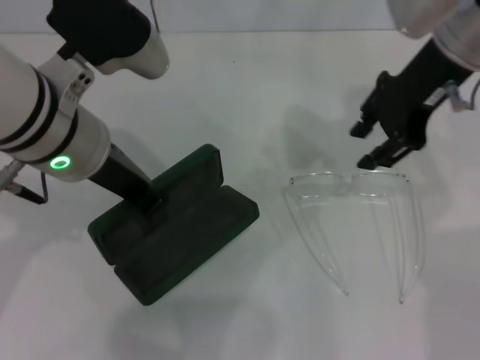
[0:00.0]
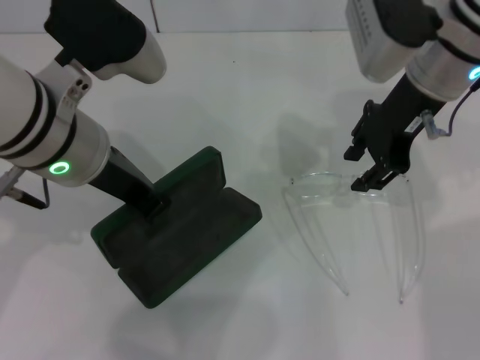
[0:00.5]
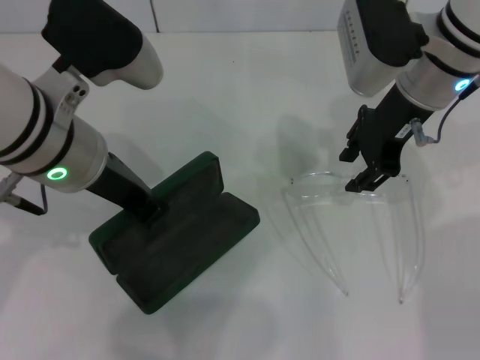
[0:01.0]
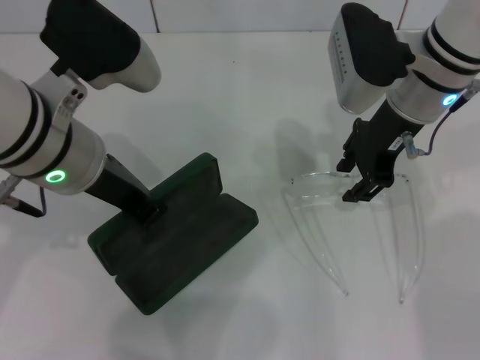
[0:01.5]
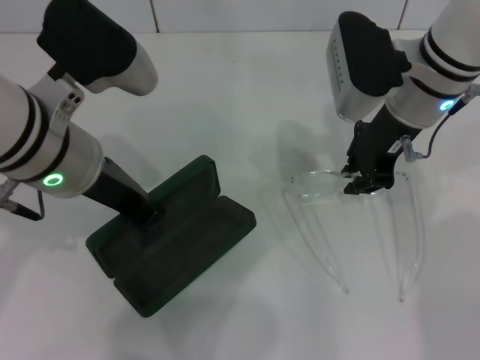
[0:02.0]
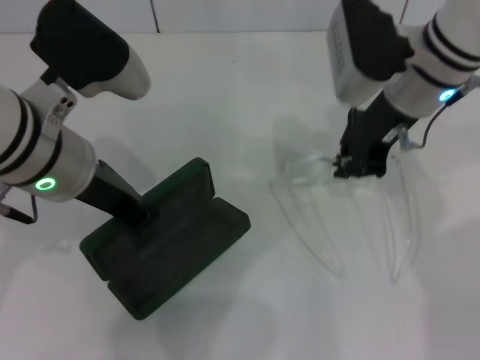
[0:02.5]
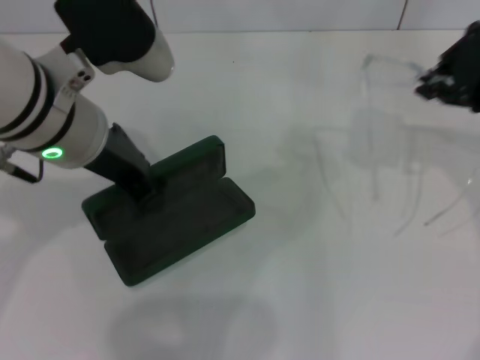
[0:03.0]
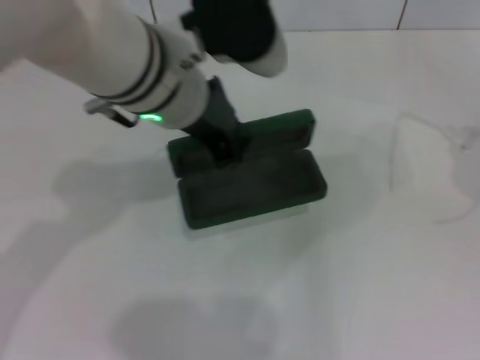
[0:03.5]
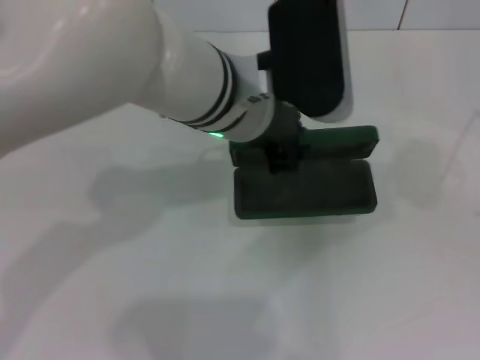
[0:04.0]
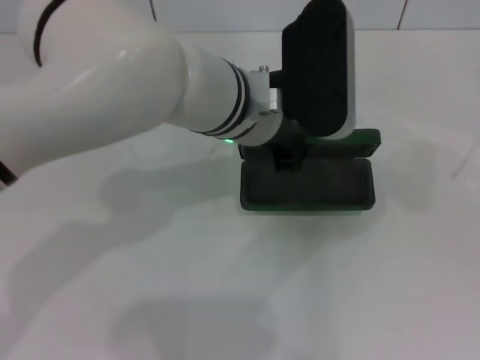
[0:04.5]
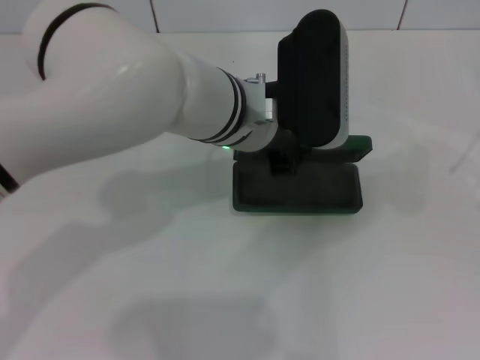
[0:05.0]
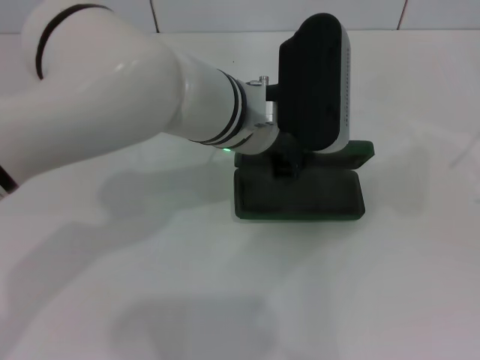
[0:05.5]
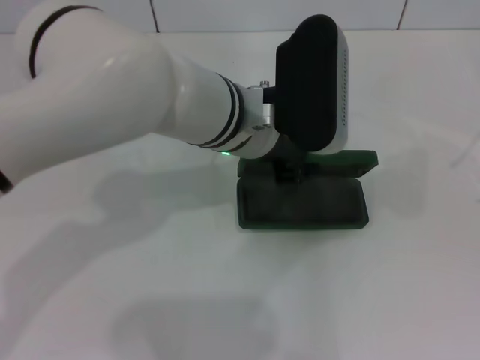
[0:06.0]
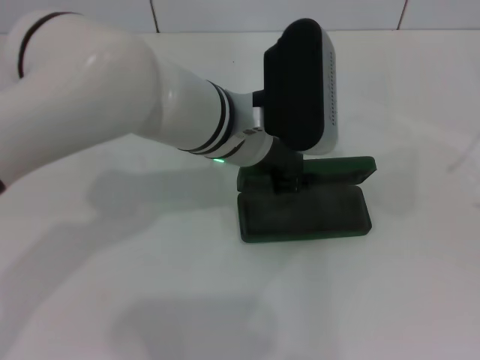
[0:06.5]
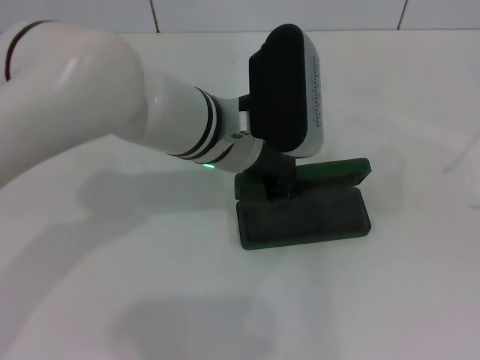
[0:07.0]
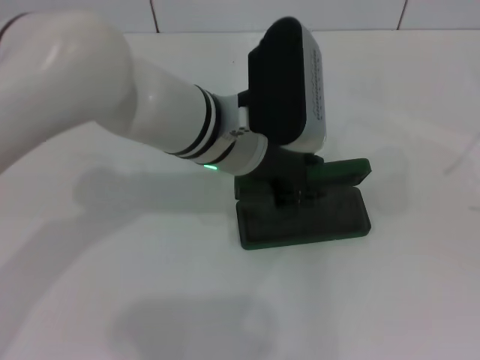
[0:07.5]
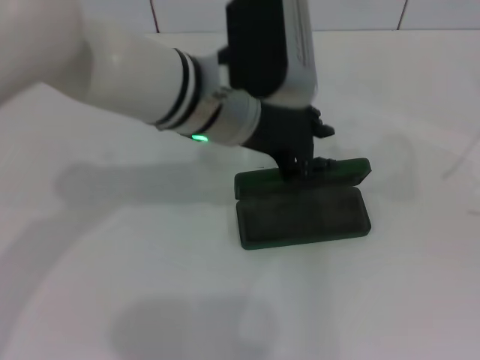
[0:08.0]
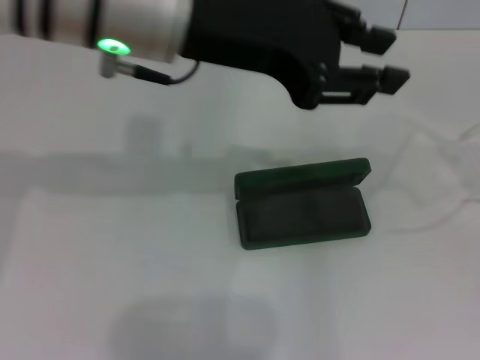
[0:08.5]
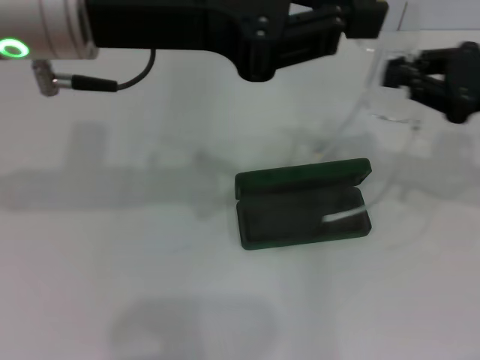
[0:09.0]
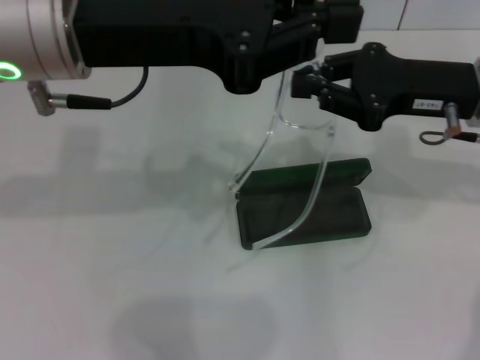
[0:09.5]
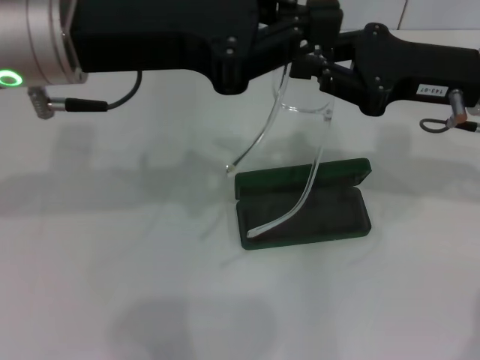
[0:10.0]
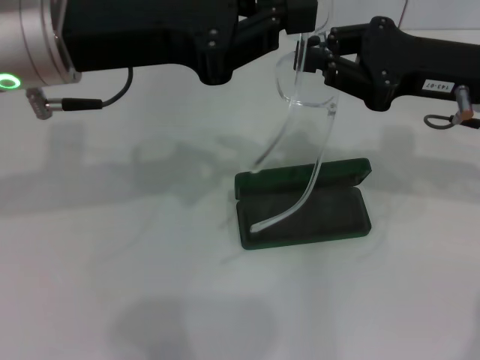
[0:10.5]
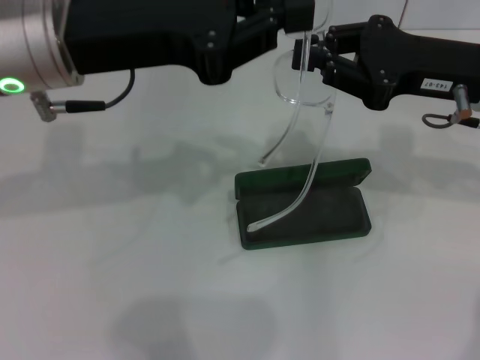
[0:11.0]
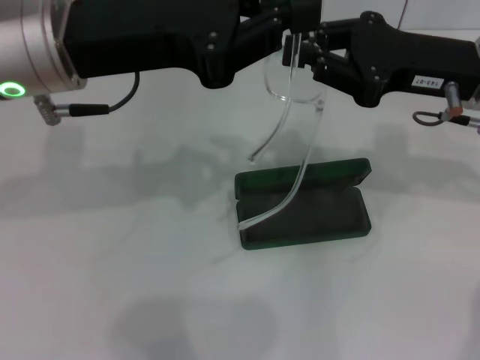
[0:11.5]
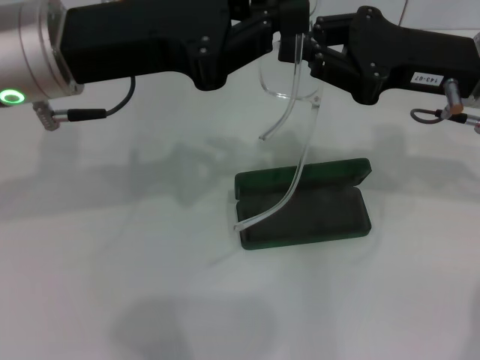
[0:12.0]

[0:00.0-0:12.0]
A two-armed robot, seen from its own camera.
Step, 0:00.0 to 0:02.0: Grab the eyeglass frame with your right hand.
Step, 0:02.5 to 0:07.0: Place the glasses case in the center of the table with your left hand.
0:00.0 to 0:02.0: The right gripper heads downward, covering about 10 cm.
0:02.0 to 0:04.0: The right gripper heads to the right and backward, covering roughly 35 cm, and closes its fingers. Meanwhile the left gripper is displaced to the right by roughly 15 cm.
0:04.0 to 0:06.0: The left gripper opens.
0:08.0 to 0:10.0: The left gripper travels to the left and upward by approximately 15 cm, and closes; the right gripper heads to the left and forward, covering some 25 cm.
0:10.0 to 0:12.0: The grippers stay close to where they were, moving slightly.

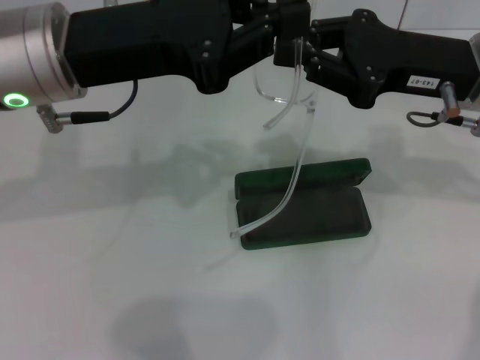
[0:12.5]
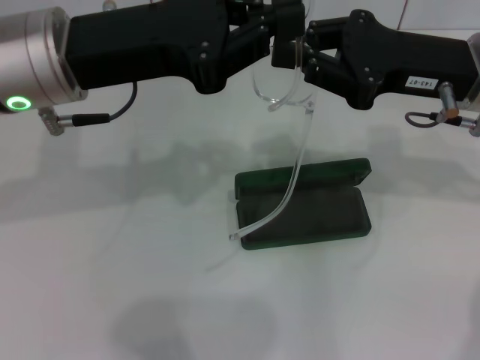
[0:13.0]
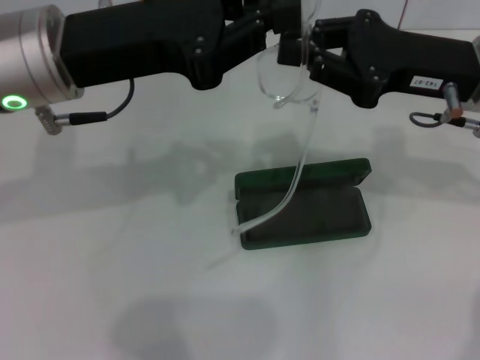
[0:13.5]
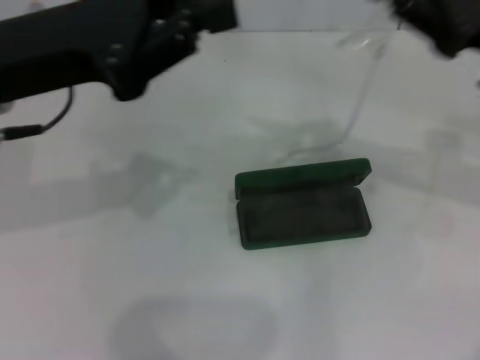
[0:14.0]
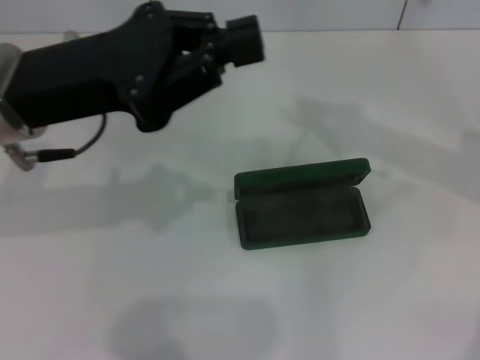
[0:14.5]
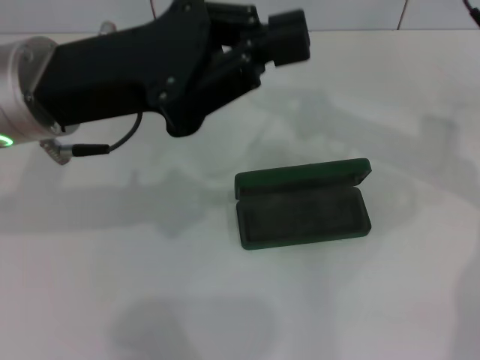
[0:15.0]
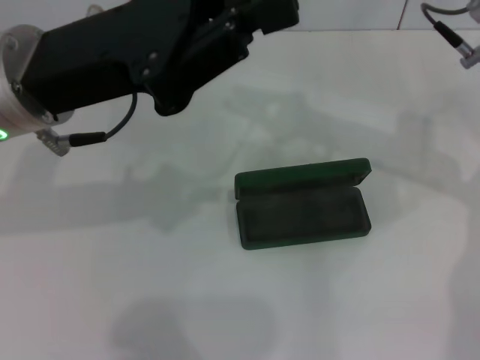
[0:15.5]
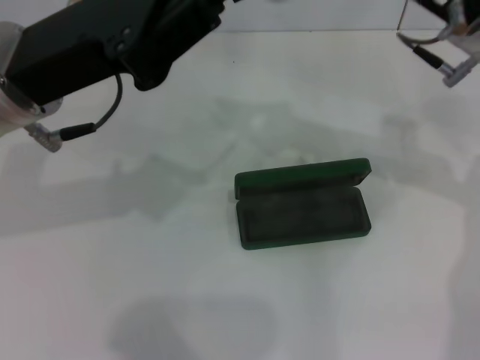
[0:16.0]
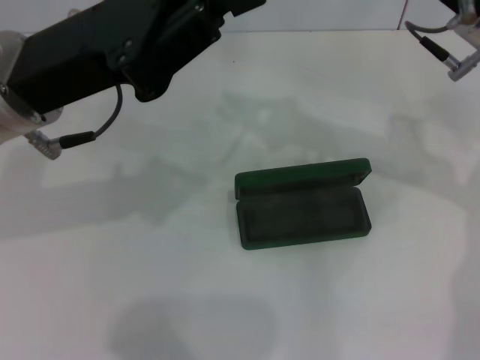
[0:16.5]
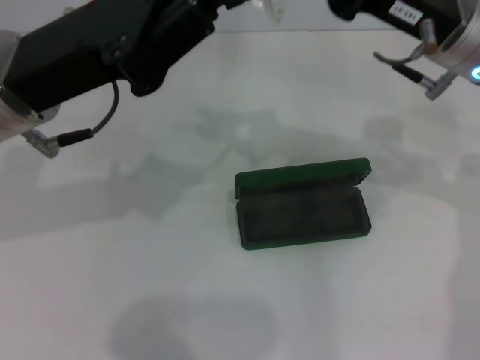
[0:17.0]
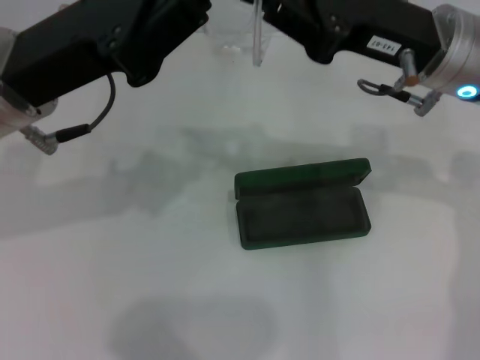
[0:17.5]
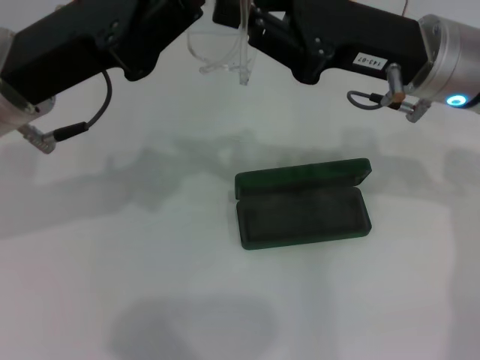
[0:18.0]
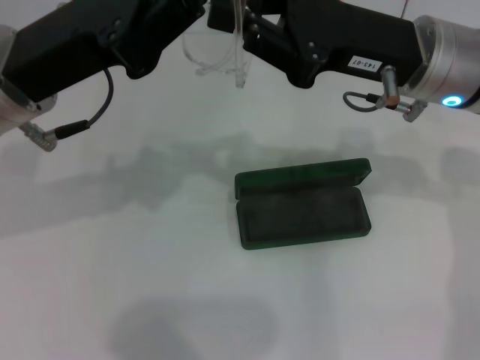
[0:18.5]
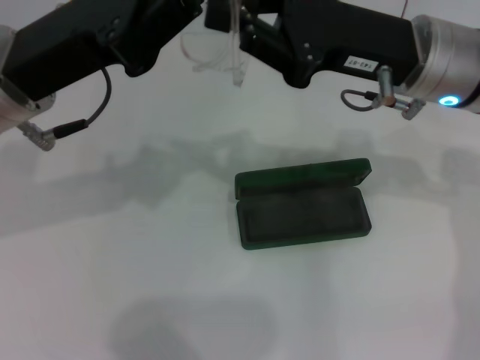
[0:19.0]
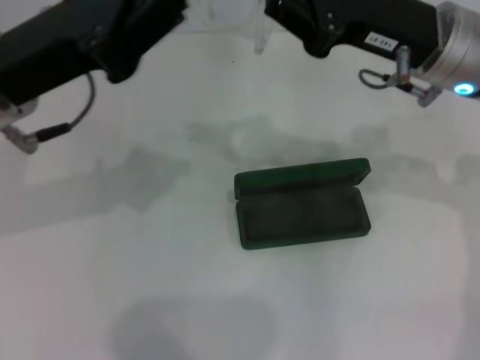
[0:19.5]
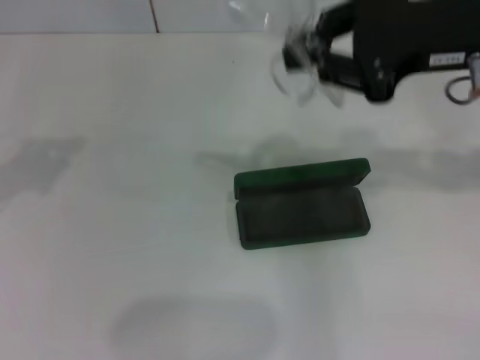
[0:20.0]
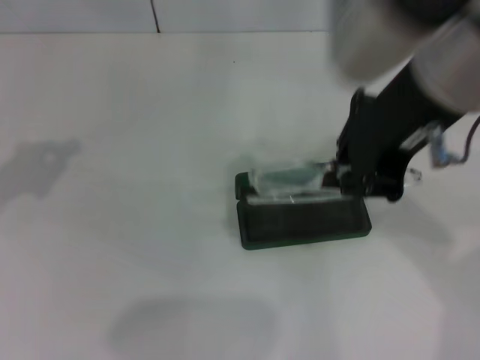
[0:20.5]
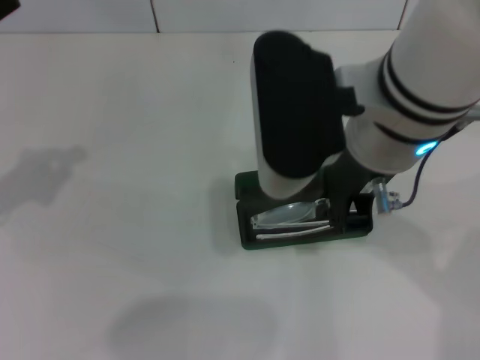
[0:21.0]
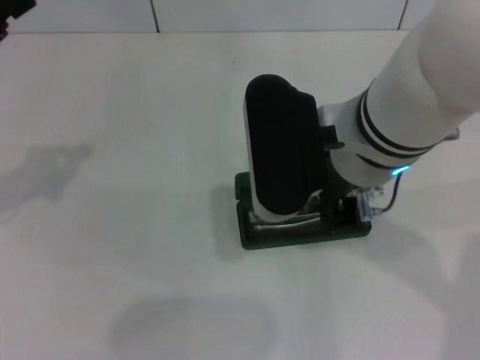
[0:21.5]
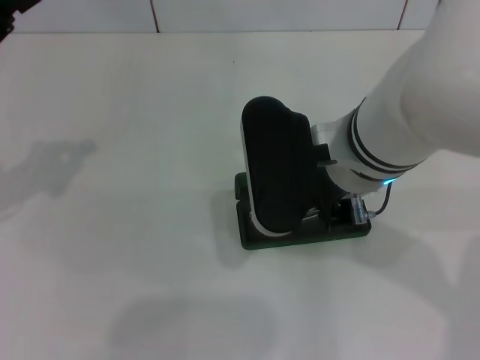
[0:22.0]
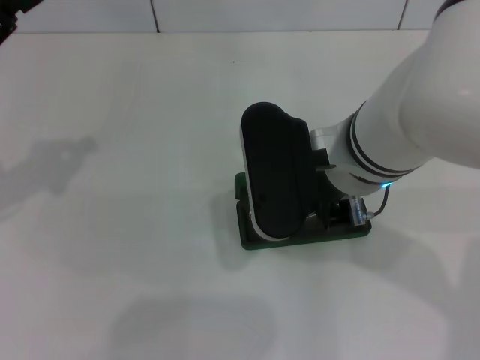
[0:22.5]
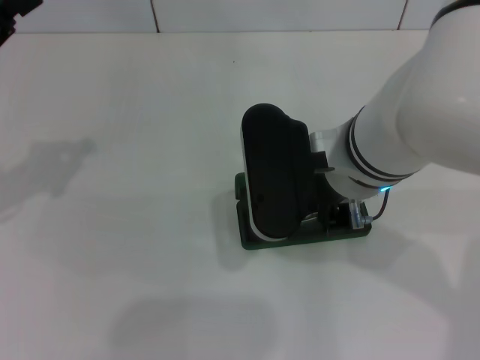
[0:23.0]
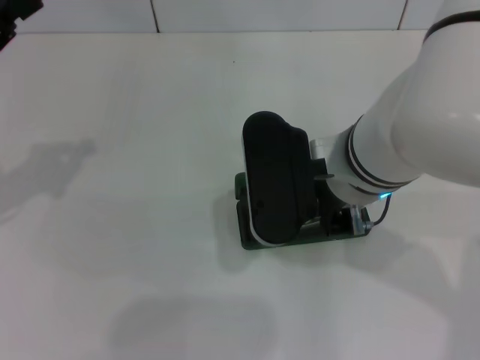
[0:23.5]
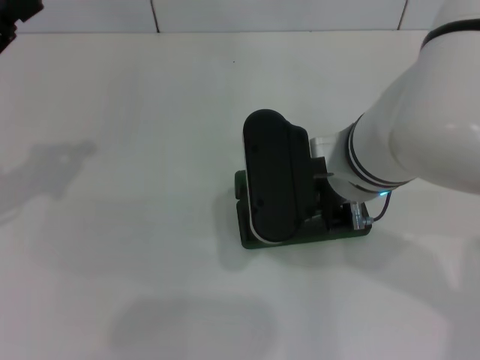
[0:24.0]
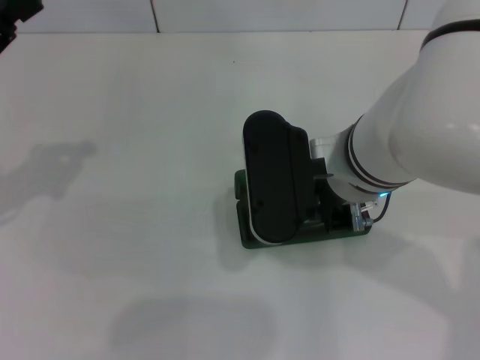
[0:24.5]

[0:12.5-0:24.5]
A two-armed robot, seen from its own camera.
Step, 0:12.5 to 0:18.5: Fold the frame with your left hand.
0:12.5 to 0:14.5: The right gripper moves to the right, about 5 cm.
0:14.5 to 0:16.5: The right gripper goes about 10 cm to the left.
0:16.5 to 0:18.5: The grippers stay close to where they were, moving slightly.
0:18.5 to 0:20.5: The left gripper goes approximately 15 cm to the left. The right gripper heads upward and backward, covering about 15 cm.
0:20.5 to 0:22.5: The right gripper moves downward, about 15 cm.
0:22.5 to 0:24.5: The two grippers keep their place.

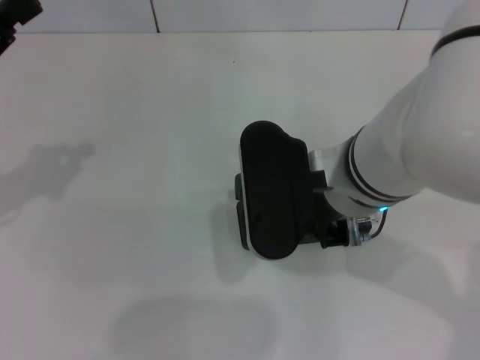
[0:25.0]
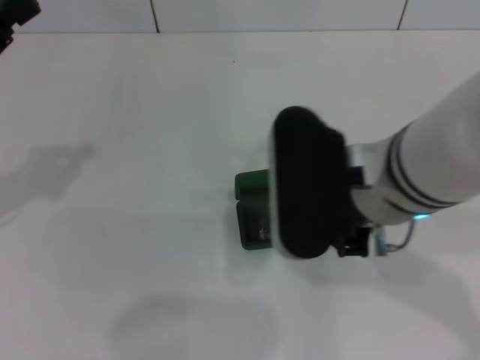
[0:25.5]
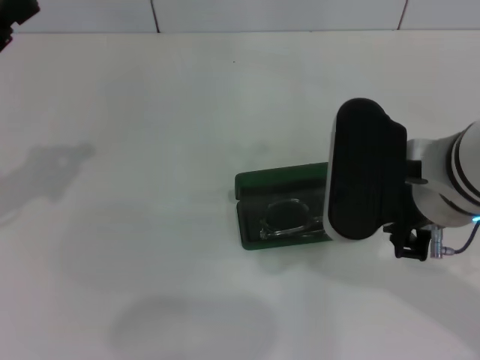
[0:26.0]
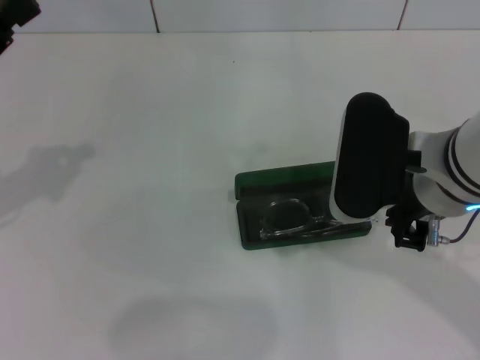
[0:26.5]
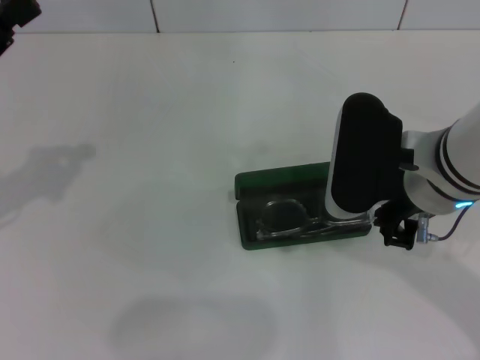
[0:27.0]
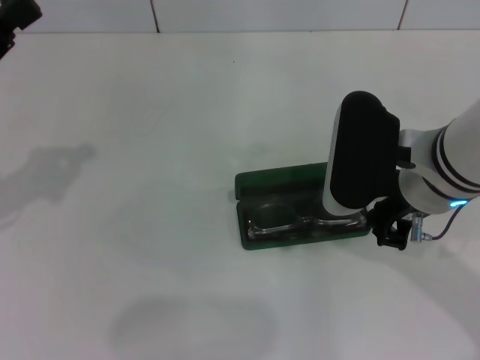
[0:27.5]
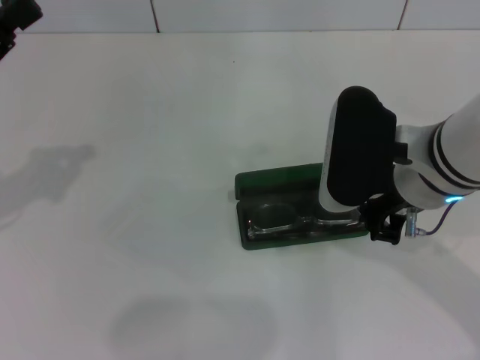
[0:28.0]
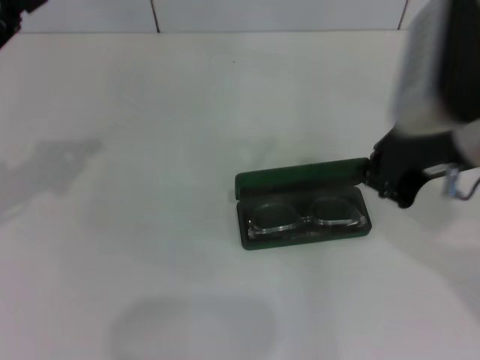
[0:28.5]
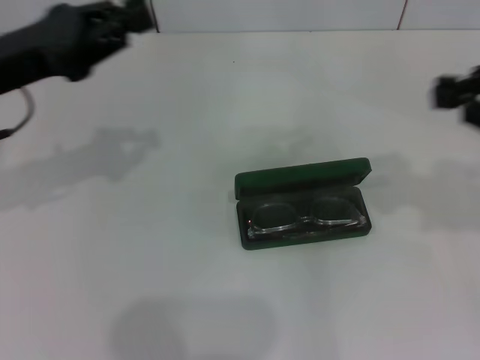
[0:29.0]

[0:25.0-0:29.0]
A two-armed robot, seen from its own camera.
0:25.0 to 0:27.0: The right gripper goes roughly 5 cm to the right.
0:27.0 to 0:29.0: The right gripper heads to the right and upward, covering approximately 20 cm. The left gripper is displaced forward and to the right by some 5 cm.
